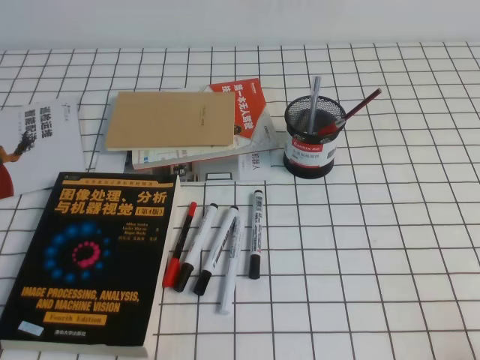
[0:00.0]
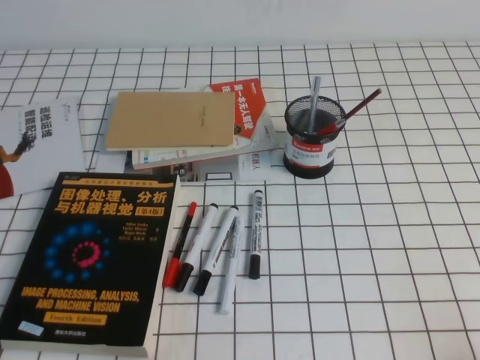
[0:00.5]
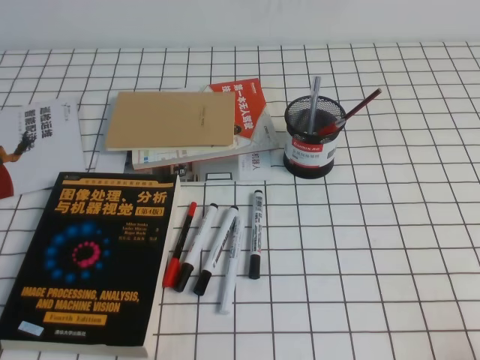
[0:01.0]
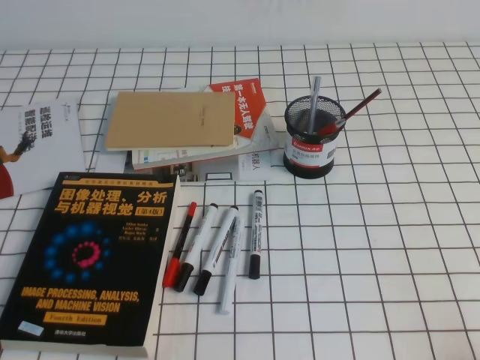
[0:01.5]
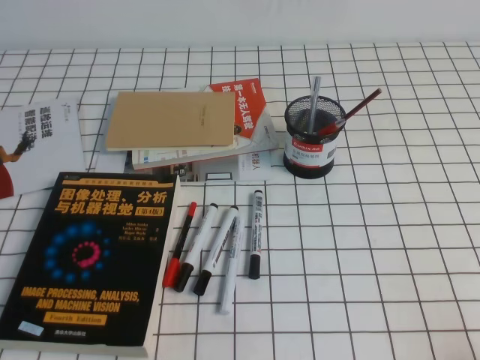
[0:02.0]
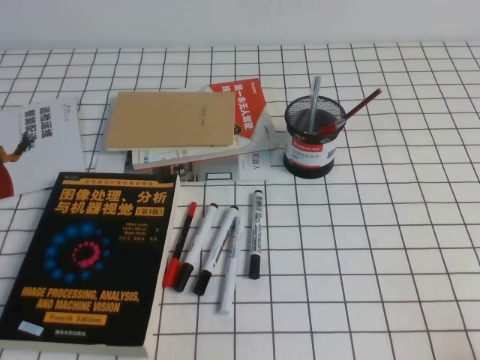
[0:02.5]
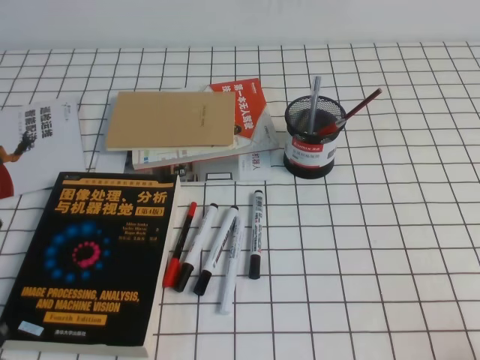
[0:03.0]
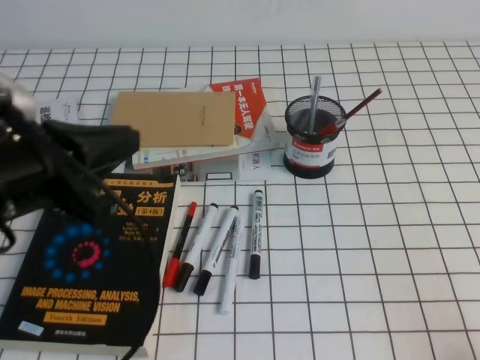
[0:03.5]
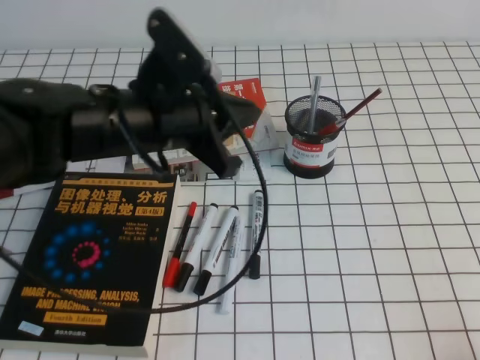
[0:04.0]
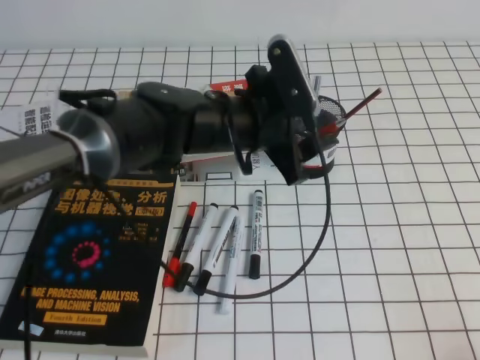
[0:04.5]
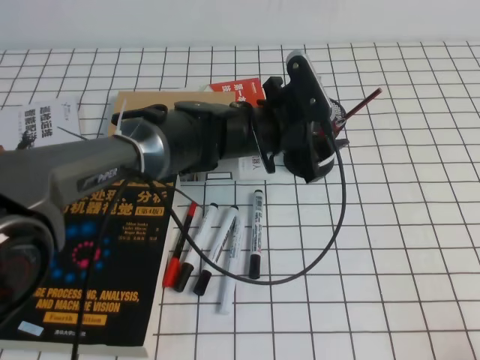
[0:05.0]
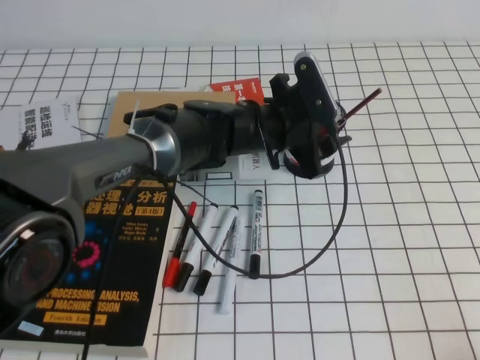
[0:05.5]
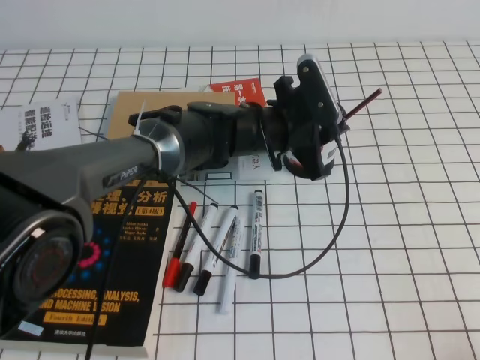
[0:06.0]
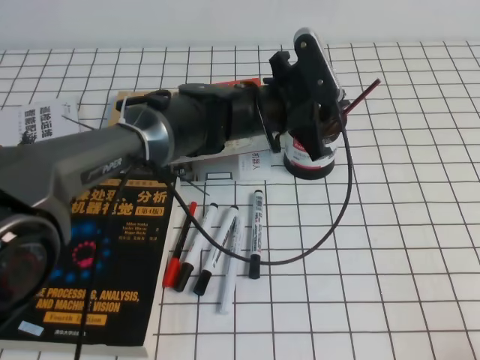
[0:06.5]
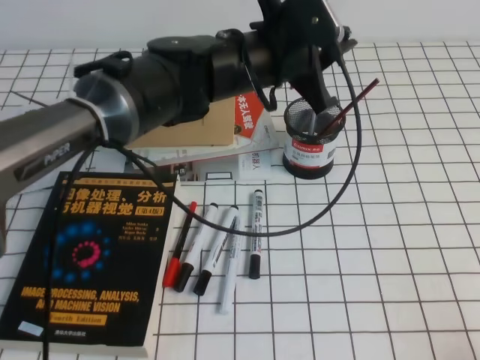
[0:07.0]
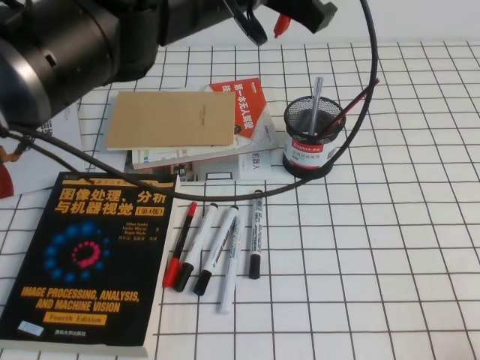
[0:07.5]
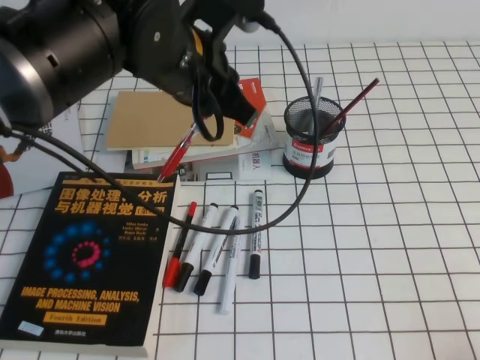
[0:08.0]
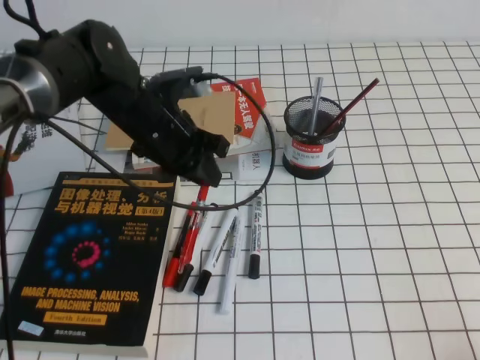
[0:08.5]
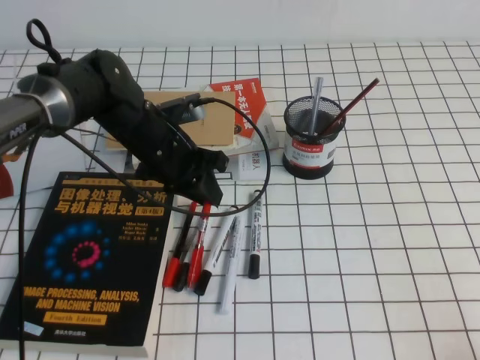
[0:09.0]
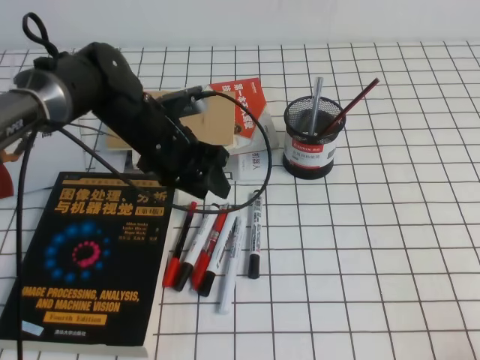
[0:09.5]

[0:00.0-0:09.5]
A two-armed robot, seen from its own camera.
0:02.0 to 0:04.0: The left gripper is displaced forward, to the right and upward by about 30 cm.
0:04.0 to 0:05.5: The left gripper goes about 20 cm to the right, downward and forward, and opens.
0:05.5 to 0:07.5: The left gripper moves upward, roughly 20 cm, and closes its fingers.
0:07.5 to 0:09.5: The left gripper heads downward and to the left, covering some 20 cm, and opens.

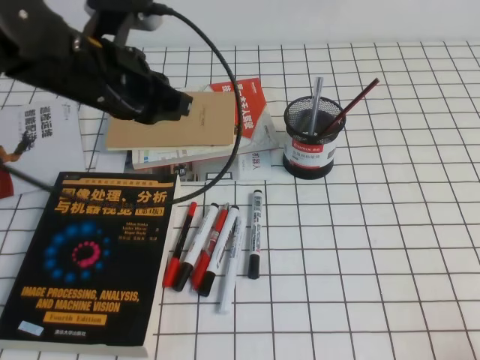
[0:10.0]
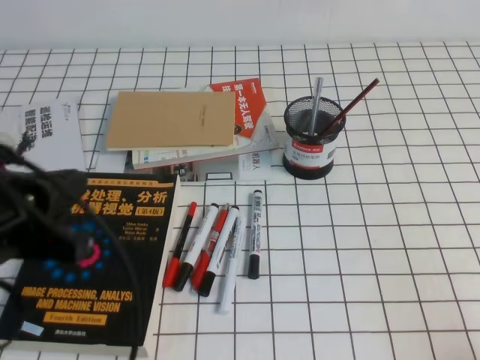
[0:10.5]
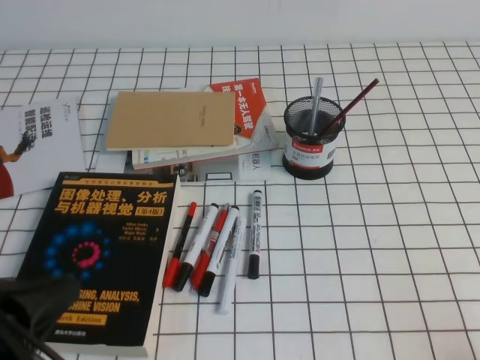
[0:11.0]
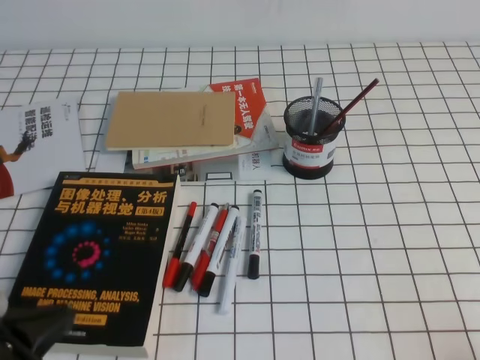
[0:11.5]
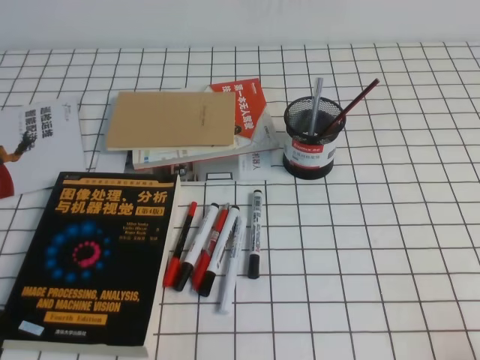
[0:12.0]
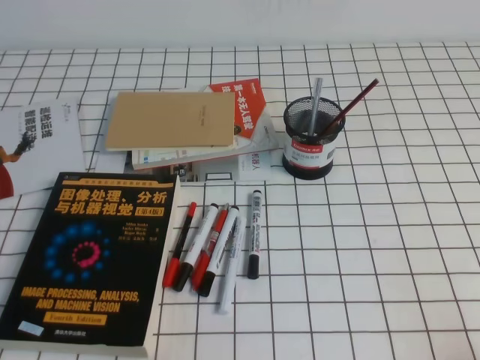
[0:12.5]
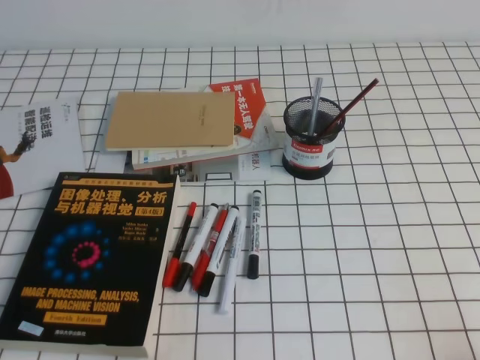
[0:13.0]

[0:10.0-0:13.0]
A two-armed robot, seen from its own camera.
Step, 0:10.0 to 0:13.0: Pick up the pen from the pen holder.
0:10.0 to 0:11.5: The left gripper moves backward, roughly 25 cm.
0:11.5 to 0:13.0: The left gripper heads downward, covering roughly 10 cm.

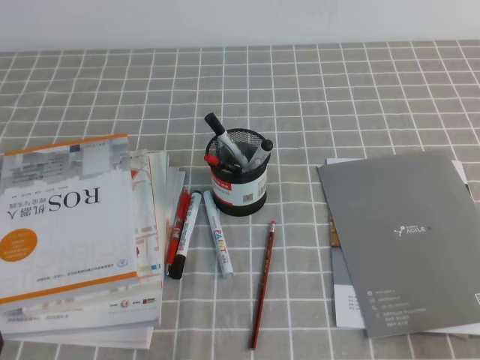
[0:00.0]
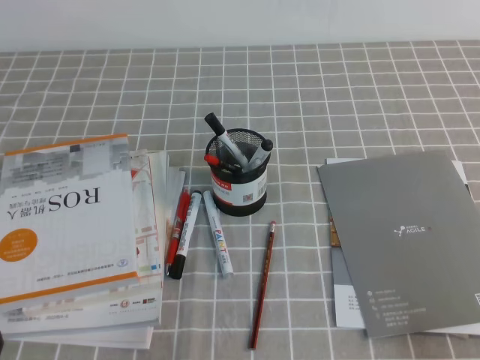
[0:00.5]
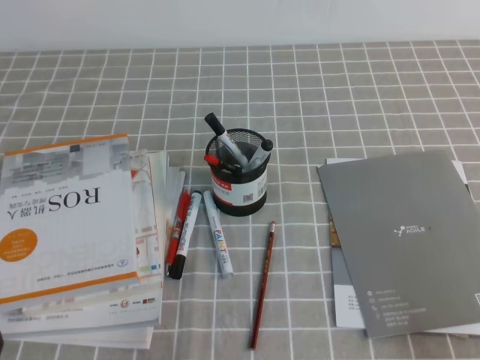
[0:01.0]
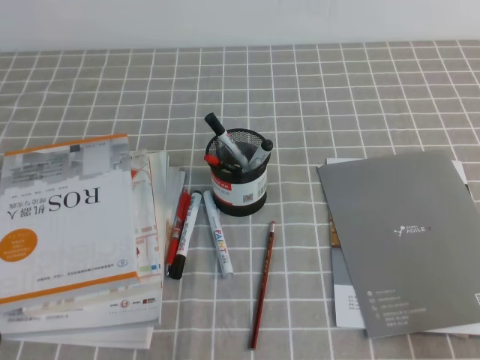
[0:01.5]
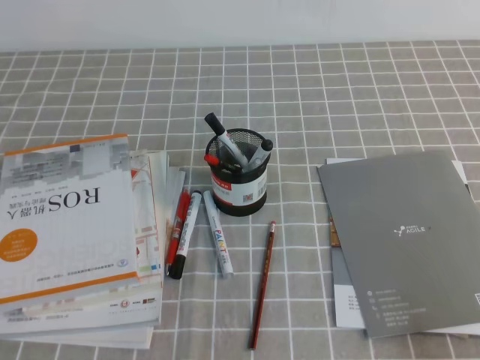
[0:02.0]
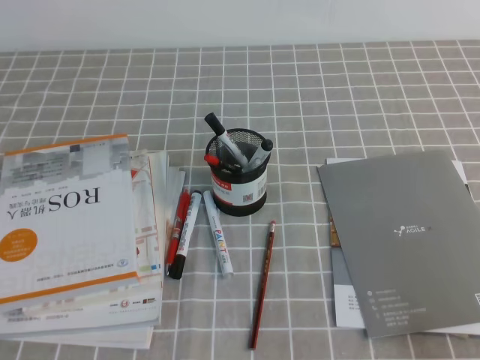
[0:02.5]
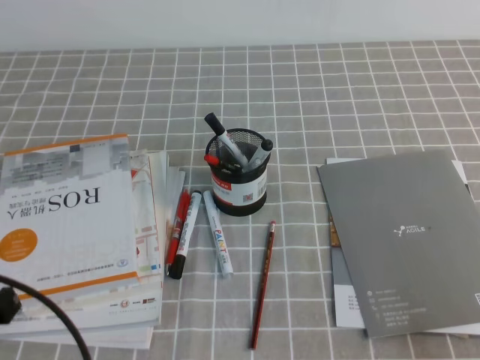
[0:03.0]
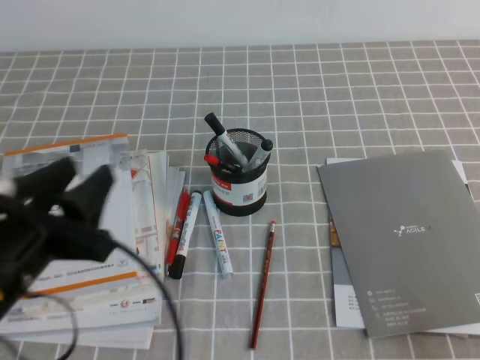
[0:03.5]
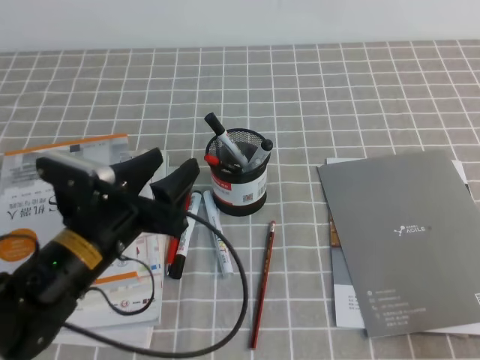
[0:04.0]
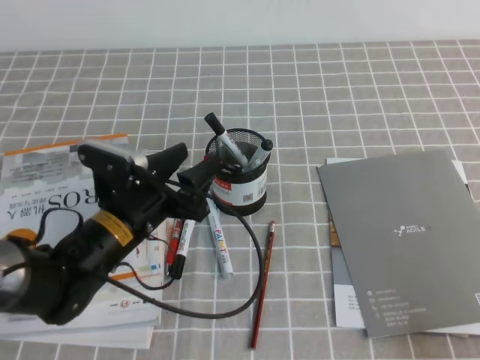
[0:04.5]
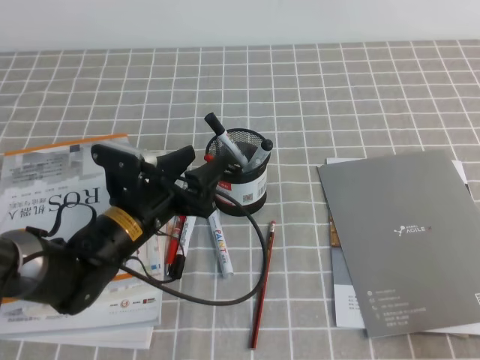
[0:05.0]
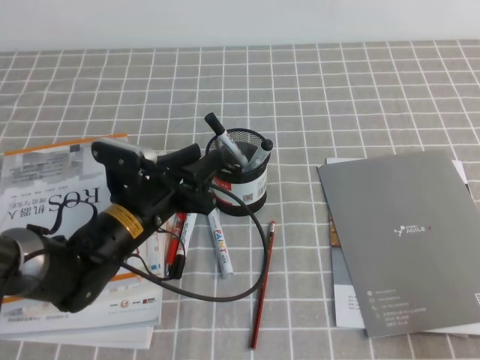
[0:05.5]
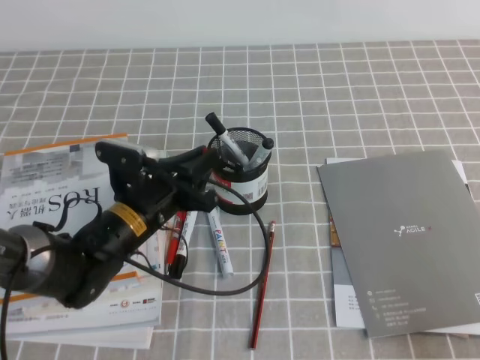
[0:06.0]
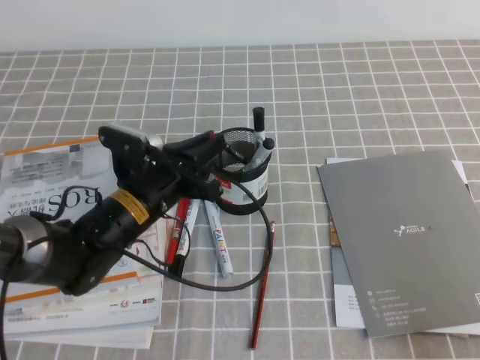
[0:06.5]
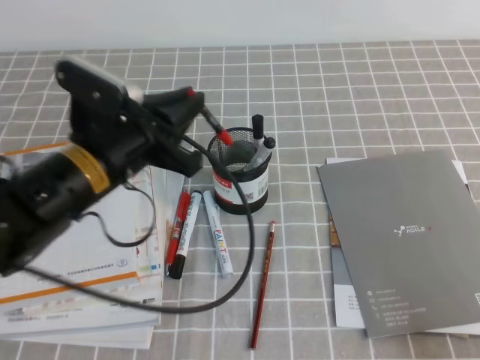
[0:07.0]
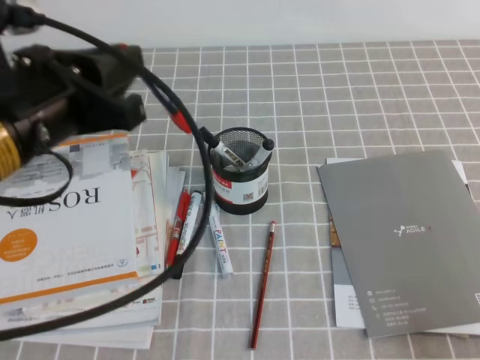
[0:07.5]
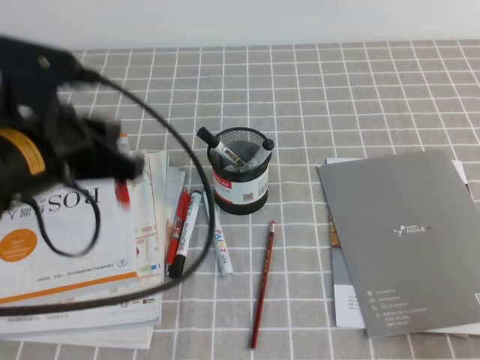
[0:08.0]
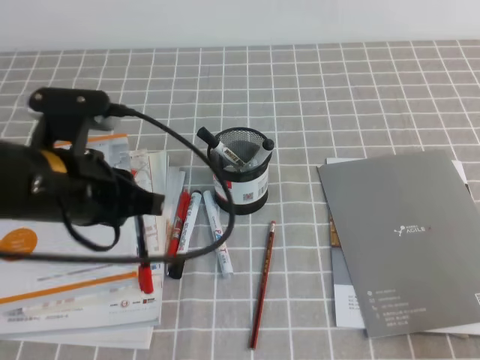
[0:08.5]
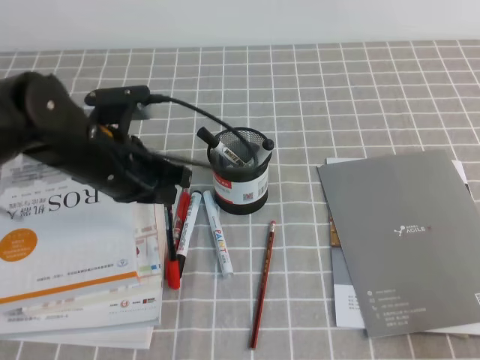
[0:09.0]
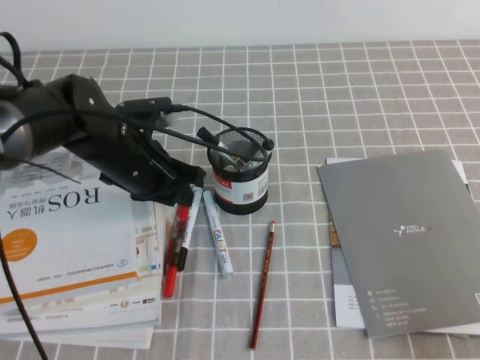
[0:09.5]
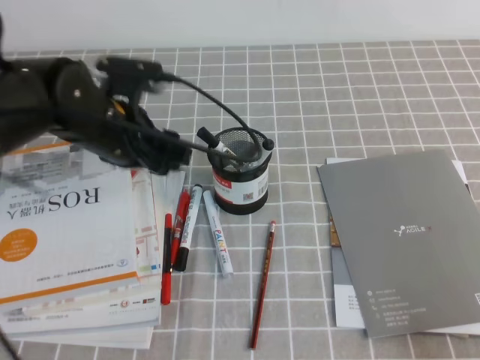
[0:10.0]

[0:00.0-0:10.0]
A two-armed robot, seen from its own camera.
0:02.0 to 0:04.0: The left gripper goes about 20 cm forward and to the right, and opens up.
0:04.0 to 0:06.0: The left gripper heads forward and downward, covering some 10 cm, and closes its fingers.
0:06.0 to 0:08.0: The left gripper shifts about 20 cm upward.
0:08.0 to 0:10.0: The left gripper moves forward and downward, some 15 cm, and opens.

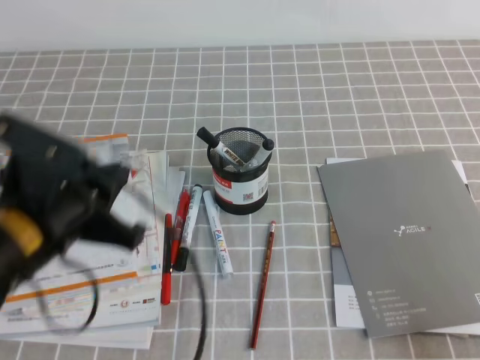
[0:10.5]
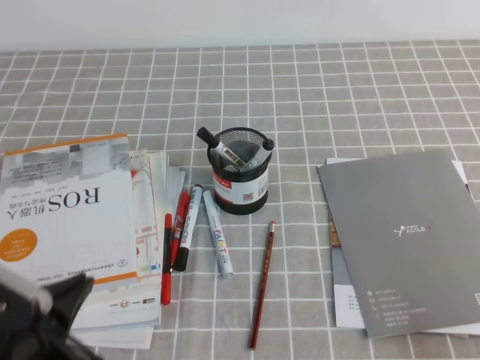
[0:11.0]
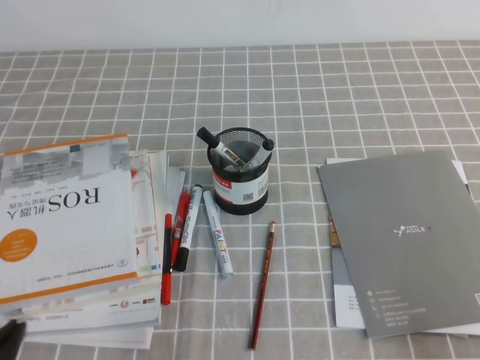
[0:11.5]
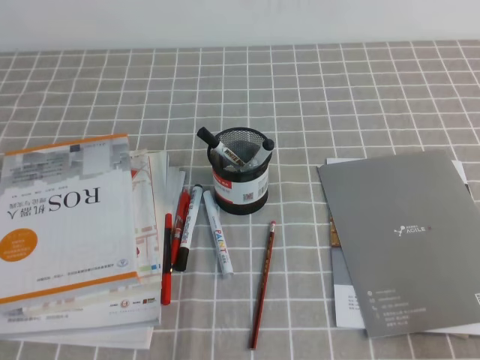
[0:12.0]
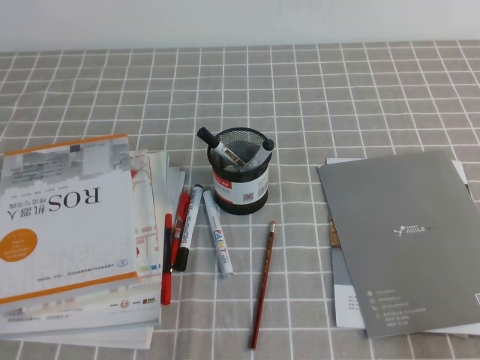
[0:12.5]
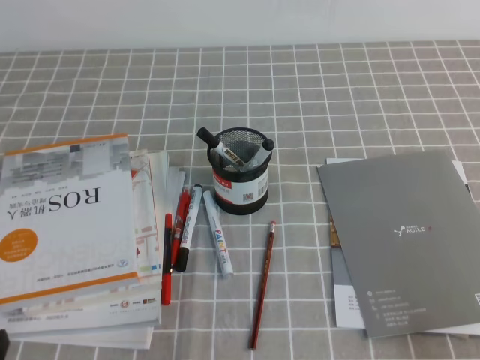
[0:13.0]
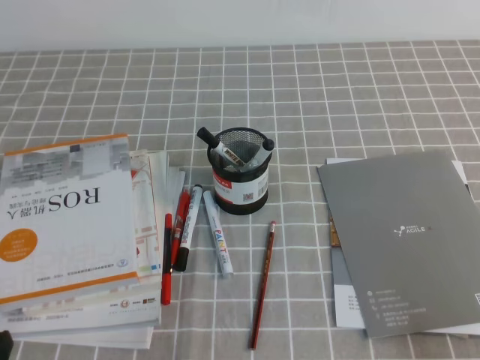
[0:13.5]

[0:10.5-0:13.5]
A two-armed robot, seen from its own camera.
Step, 0:10.5 to 0:13.5: Pick up the pen from the pen holder.
0:10.5 to 0:12.0: The left gripper goes some 25 cm backward, to the left and downward.
